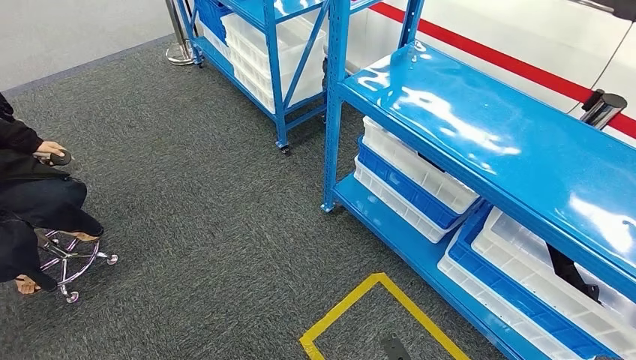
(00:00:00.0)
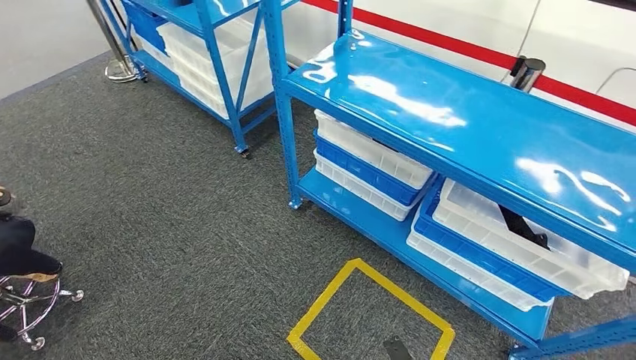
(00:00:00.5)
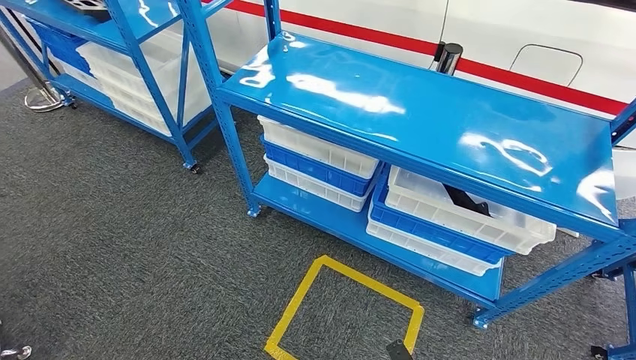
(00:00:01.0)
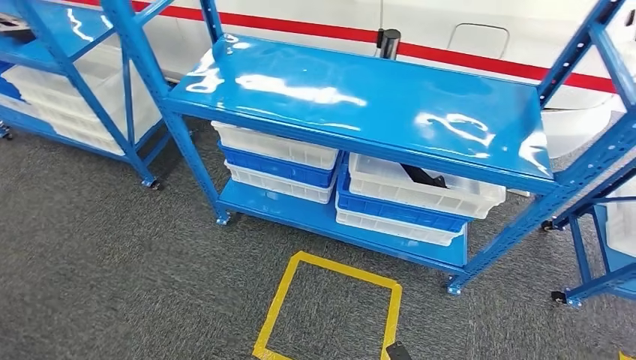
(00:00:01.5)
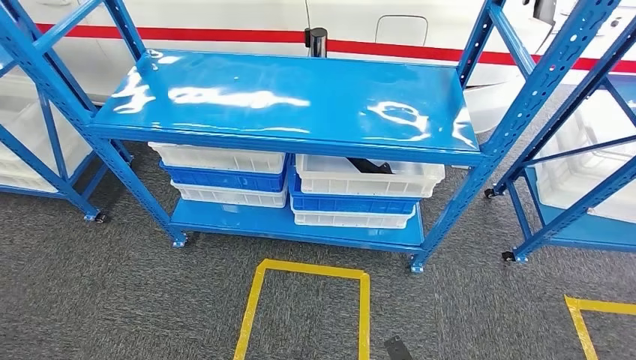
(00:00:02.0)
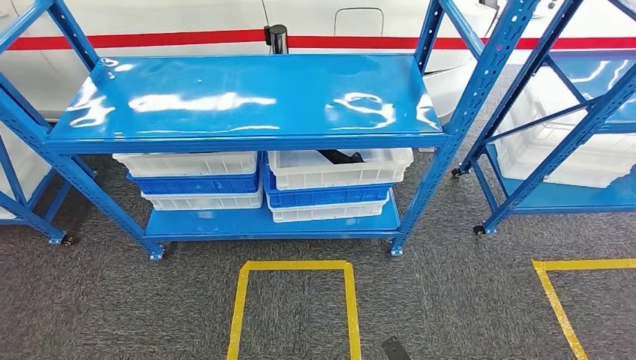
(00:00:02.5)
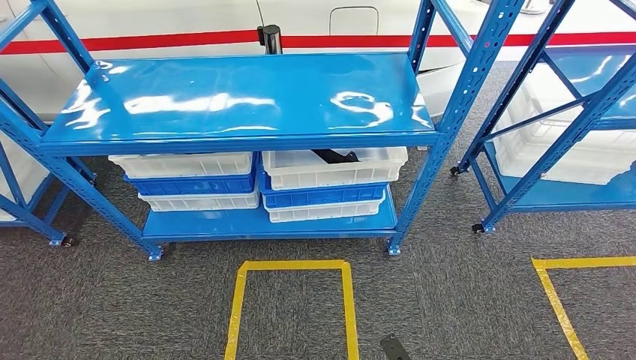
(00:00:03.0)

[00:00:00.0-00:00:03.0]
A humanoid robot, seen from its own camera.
Step, 00:00:00.0 to 00:00:03.0: Move to the initial position of the shelf.

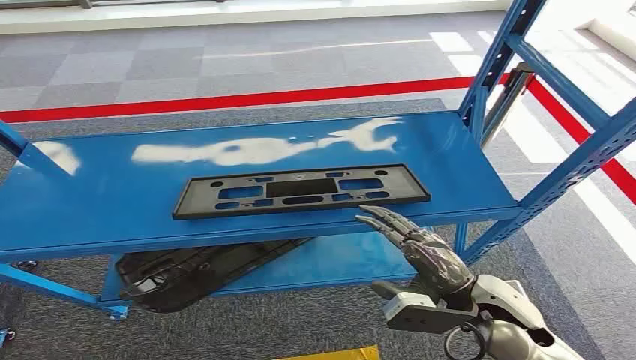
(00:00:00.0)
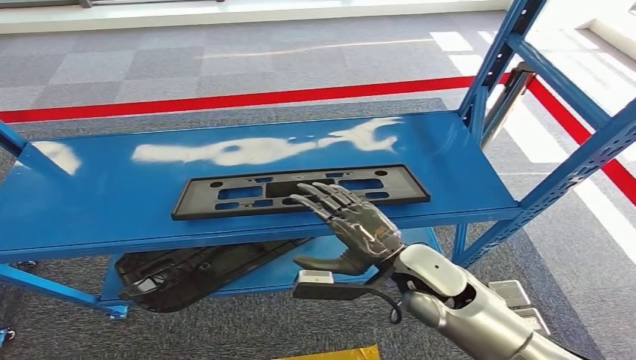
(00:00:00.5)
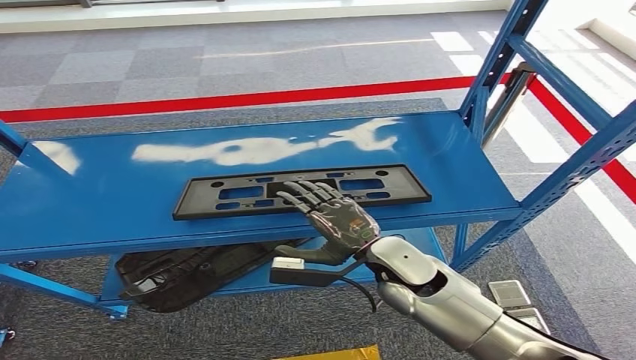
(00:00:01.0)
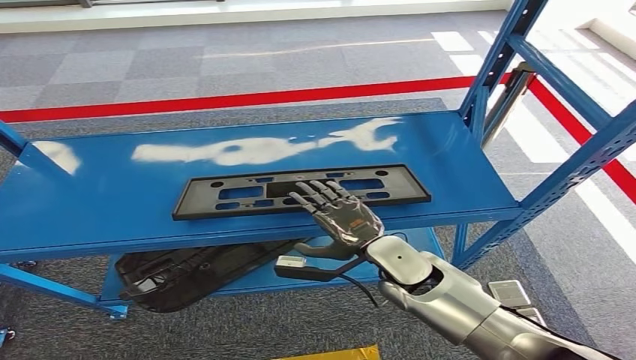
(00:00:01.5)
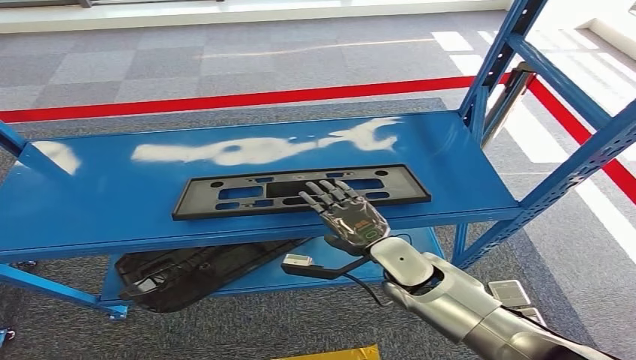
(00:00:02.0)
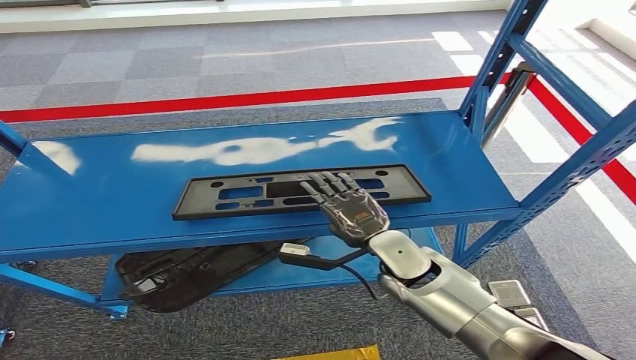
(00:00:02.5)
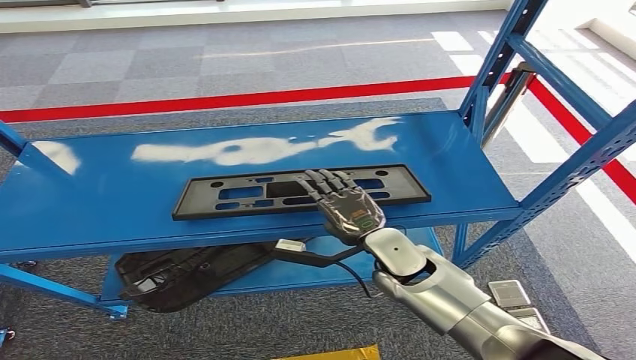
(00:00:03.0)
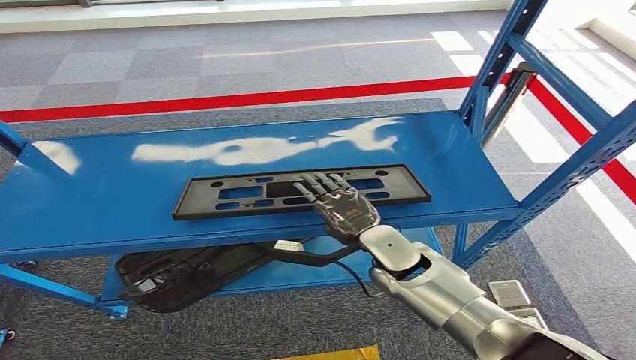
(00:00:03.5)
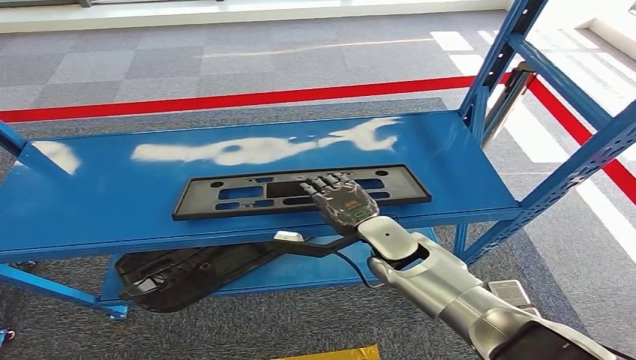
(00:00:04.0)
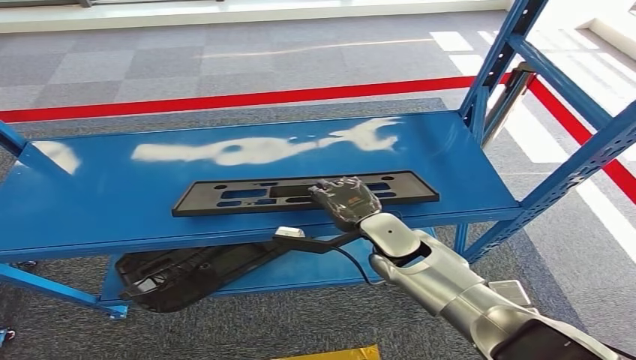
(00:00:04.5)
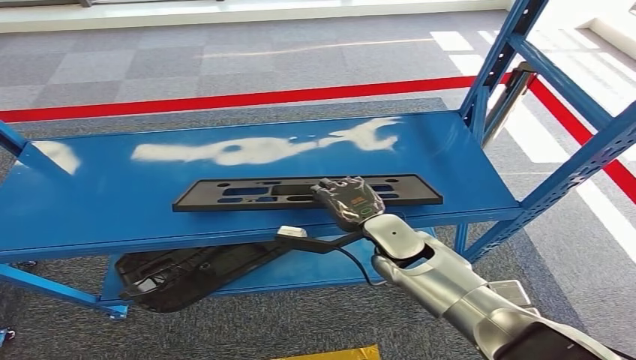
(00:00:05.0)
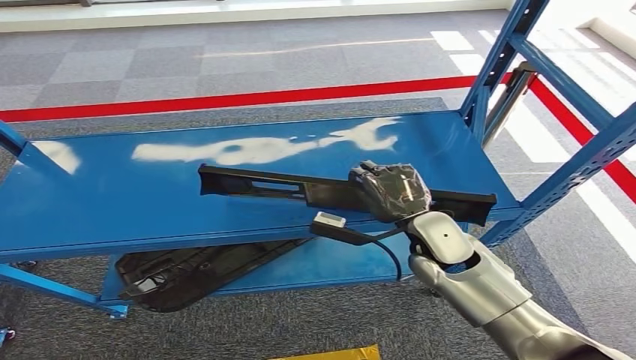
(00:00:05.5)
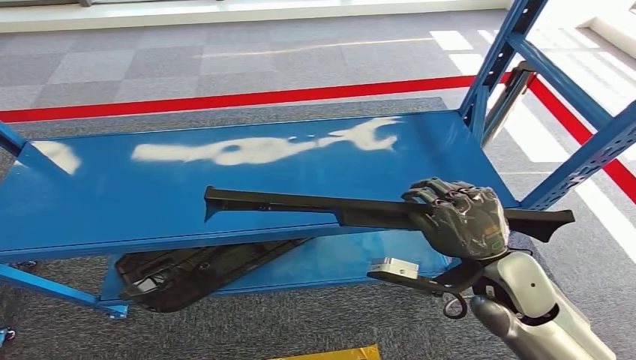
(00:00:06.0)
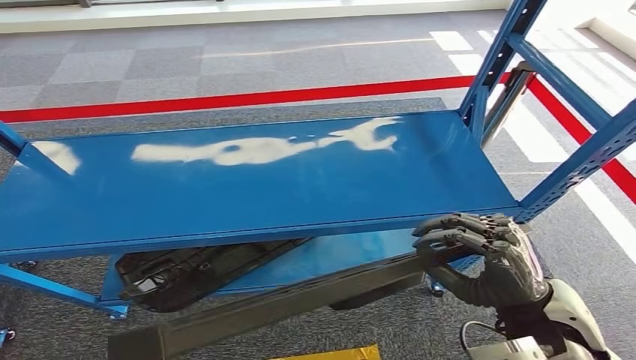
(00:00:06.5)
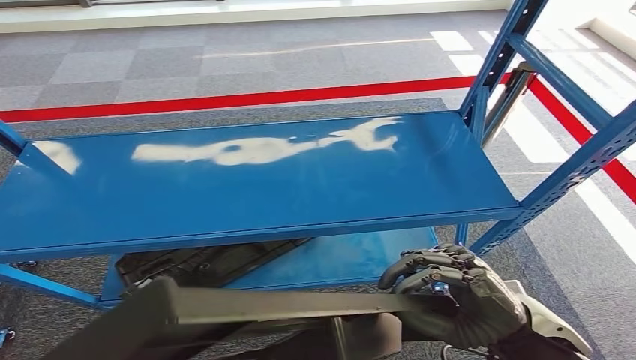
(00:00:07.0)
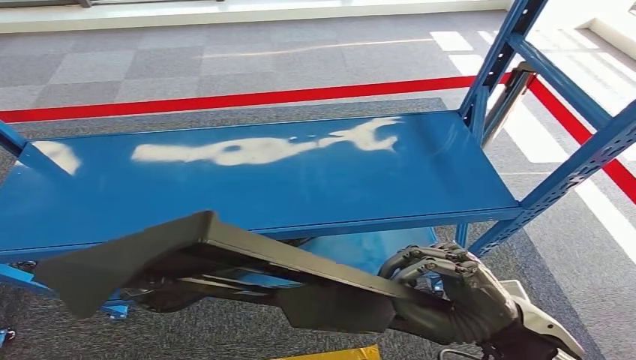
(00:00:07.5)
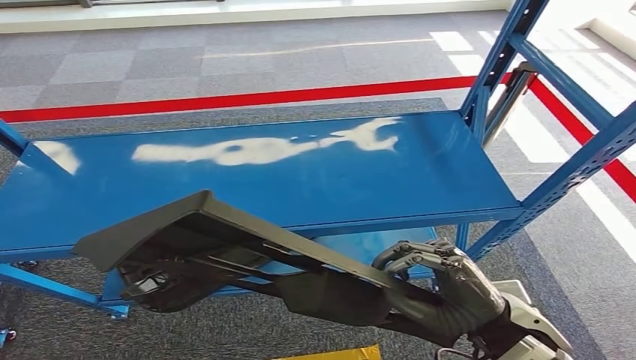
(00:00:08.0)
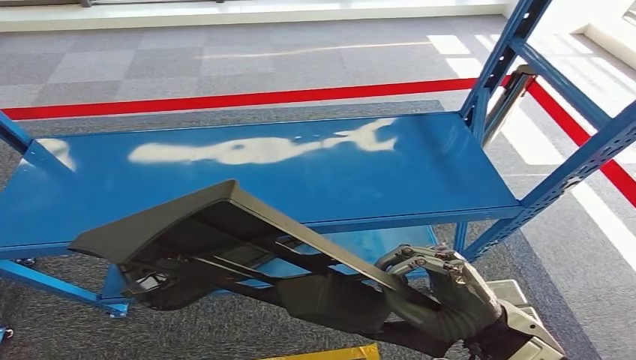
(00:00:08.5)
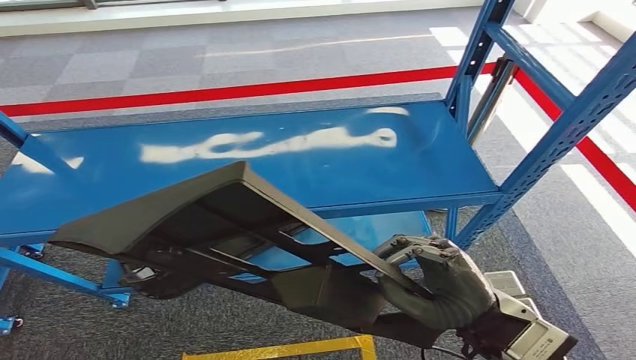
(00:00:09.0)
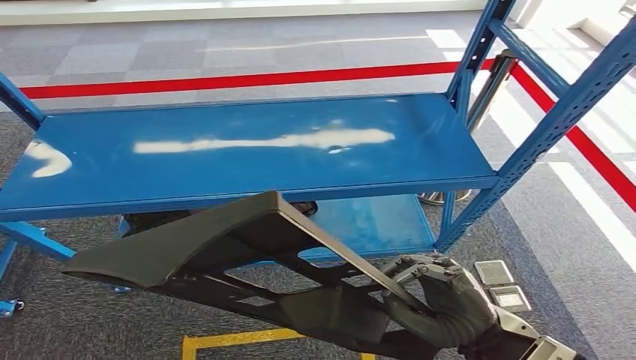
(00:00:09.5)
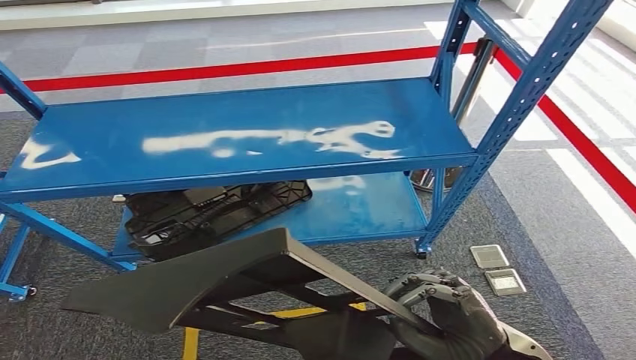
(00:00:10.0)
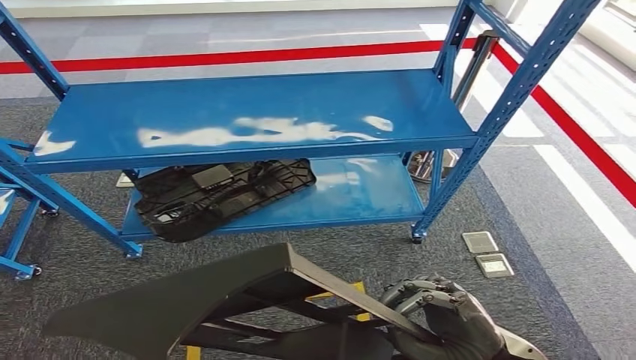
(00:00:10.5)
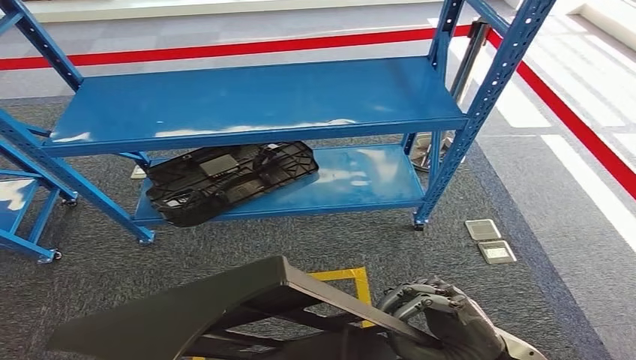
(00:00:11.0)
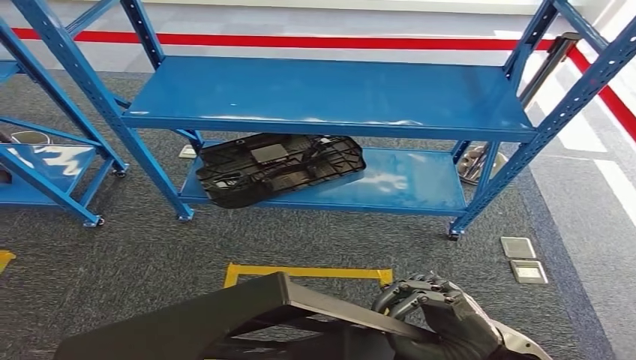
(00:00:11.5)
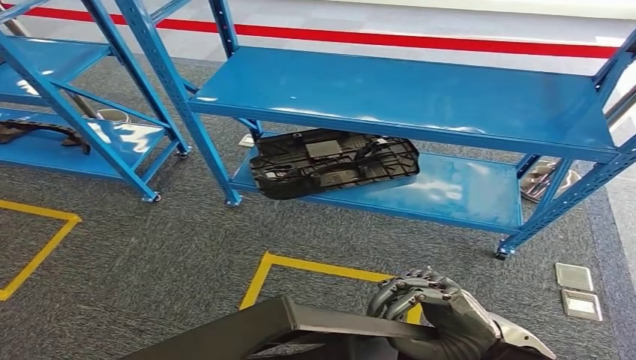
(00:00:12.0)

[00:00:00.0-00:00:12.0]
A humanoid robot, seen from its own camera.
Step, 00:00:00.0 to 00:00:07.0: Pick up the large material from the shelf.
00:00:02.0 to 00:00:04.0: The hands move only a little.
00:00:04.0 to 00:00:06.0: The right hand is displaced to the right, backward and upward by roughly 15 cm.
00:00:06.0 to 00:00:08.0: The right hand travels backward by about 10 cm.

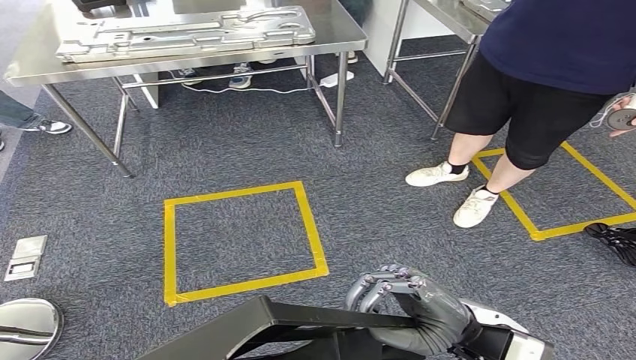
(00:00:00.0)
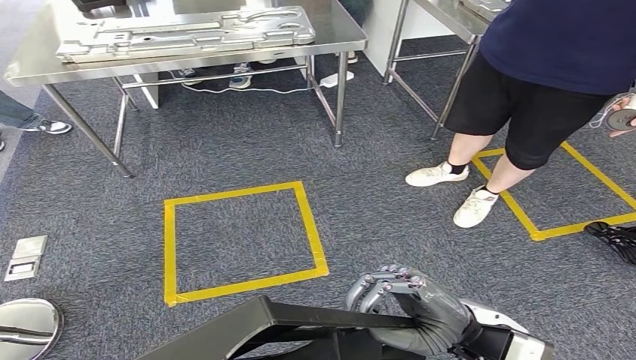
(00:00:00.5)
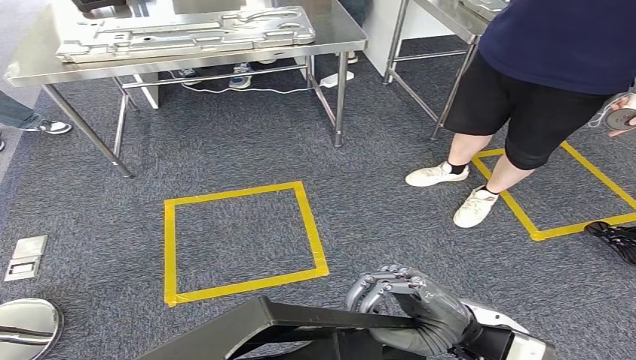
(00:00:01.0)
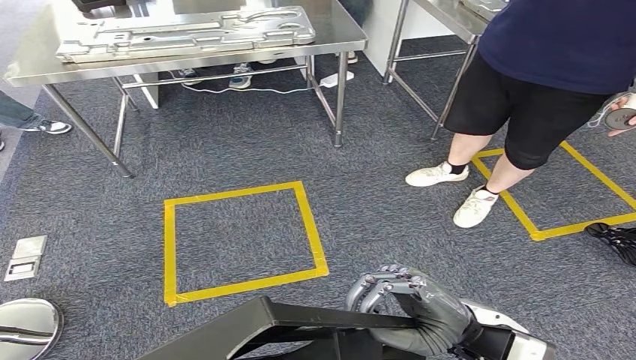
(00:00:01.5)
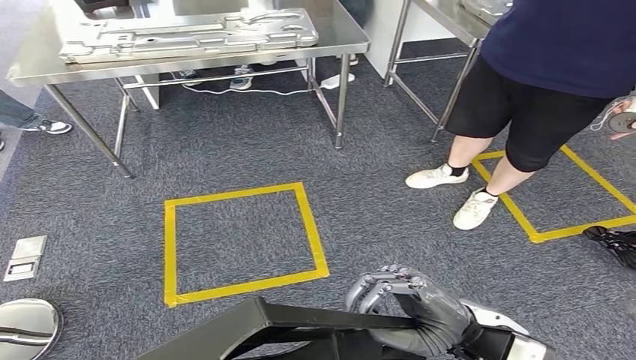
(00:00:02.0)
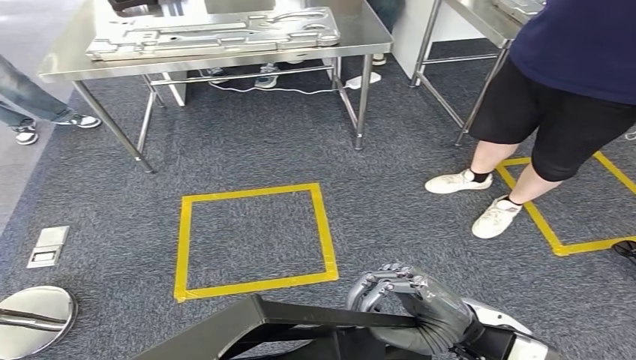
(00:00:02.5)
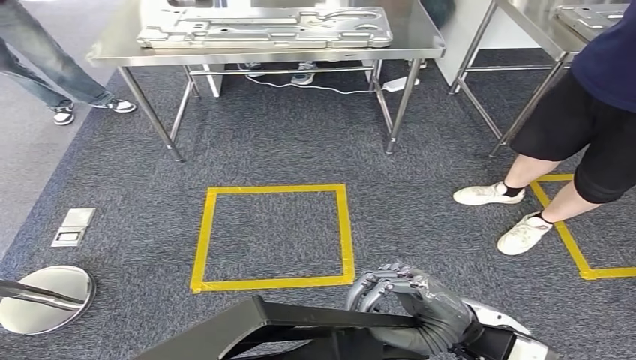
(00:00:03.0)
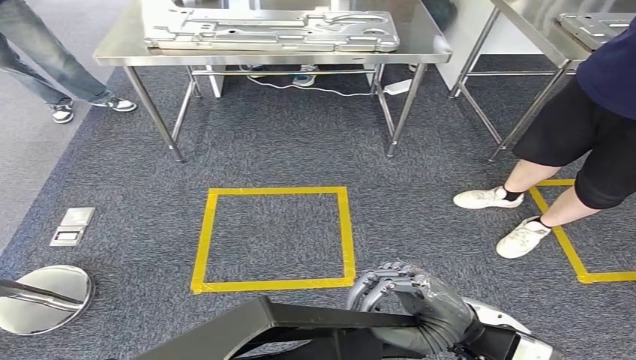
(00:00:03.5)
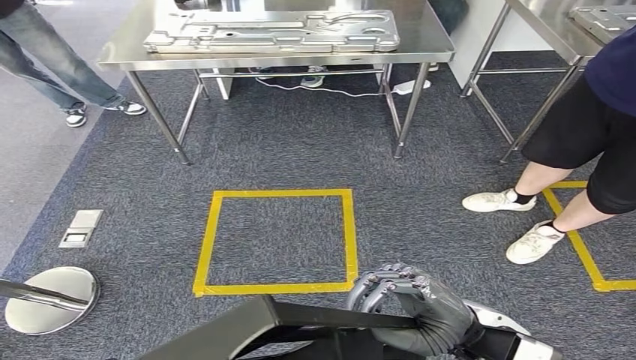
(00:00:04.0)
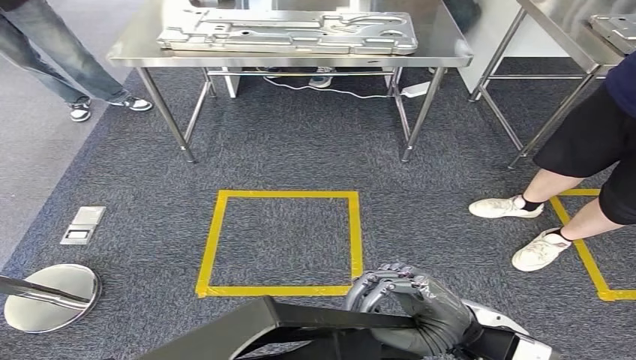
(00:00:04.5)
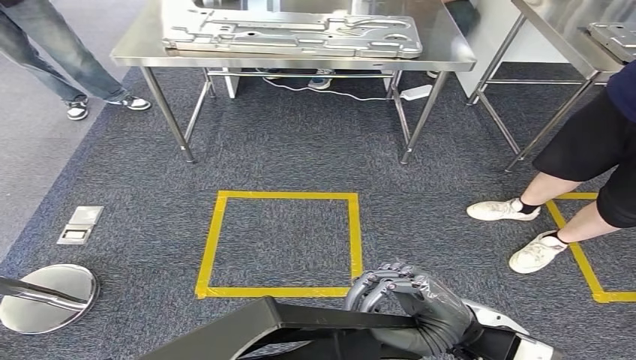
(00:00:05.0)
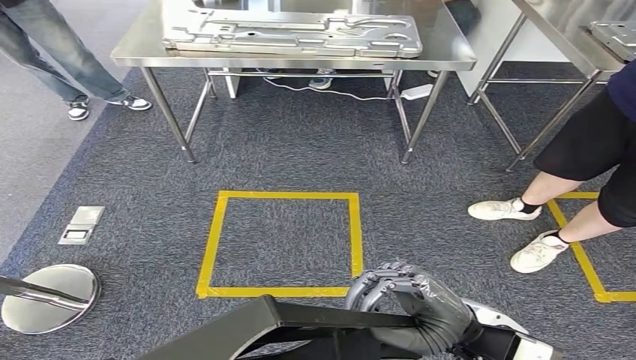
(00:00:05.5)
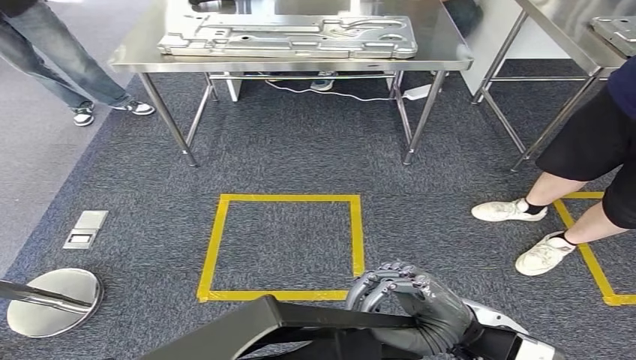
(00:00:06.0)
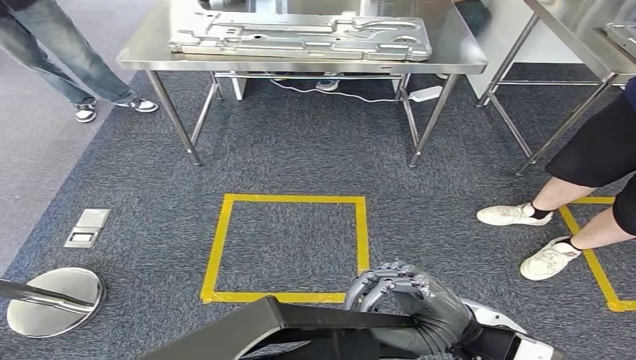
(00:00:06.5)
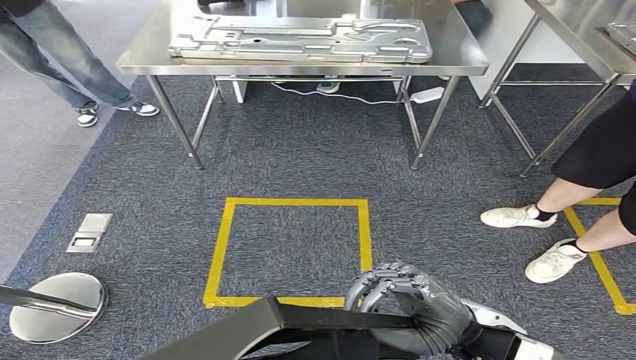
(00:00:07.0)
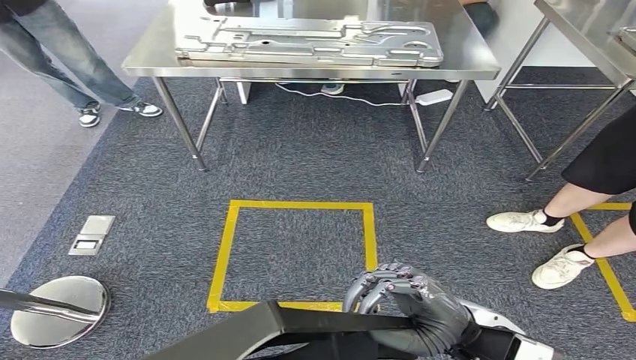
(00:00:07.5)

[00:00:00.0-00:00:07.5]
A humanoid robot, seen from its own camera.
00:00:00.0 to 00:00:02.0: Neither hand changes place.
